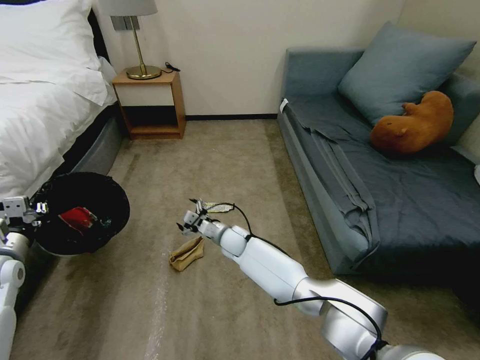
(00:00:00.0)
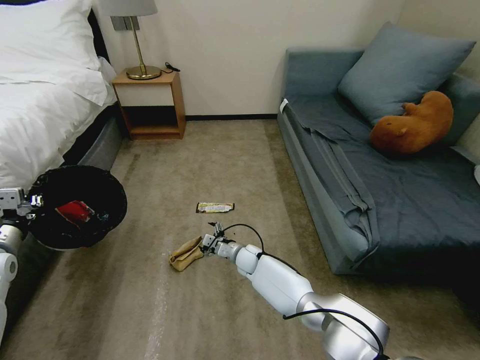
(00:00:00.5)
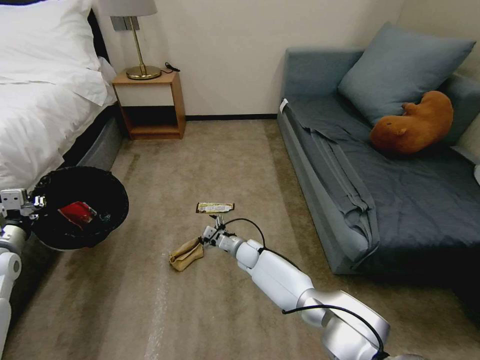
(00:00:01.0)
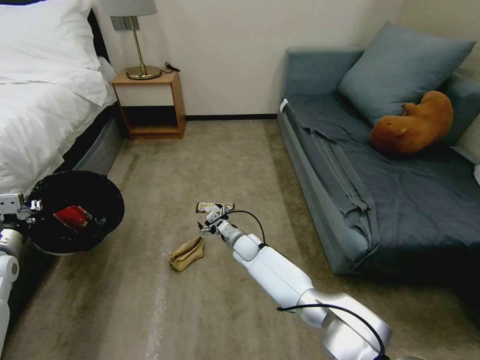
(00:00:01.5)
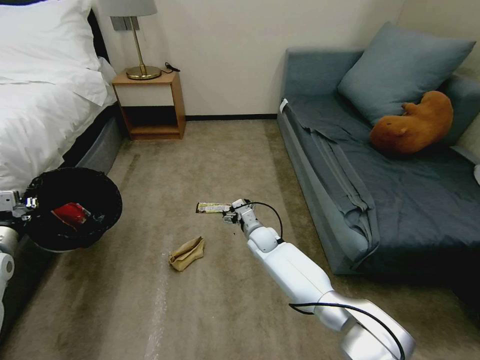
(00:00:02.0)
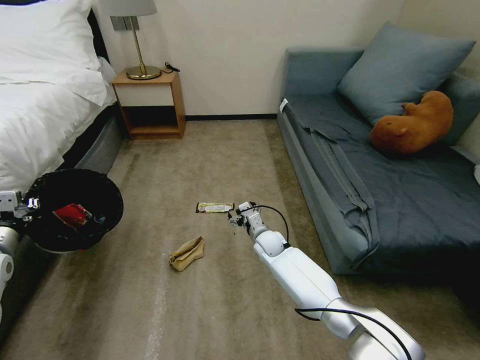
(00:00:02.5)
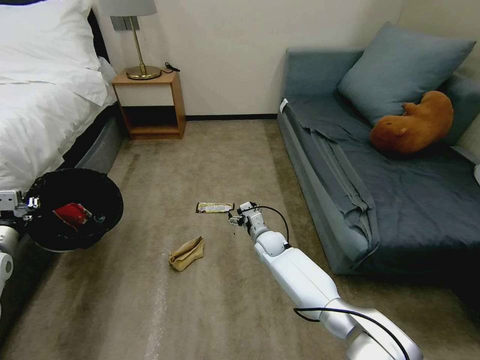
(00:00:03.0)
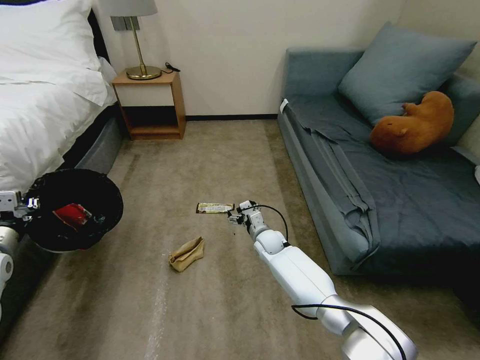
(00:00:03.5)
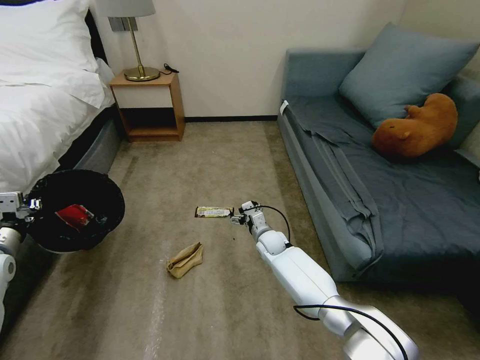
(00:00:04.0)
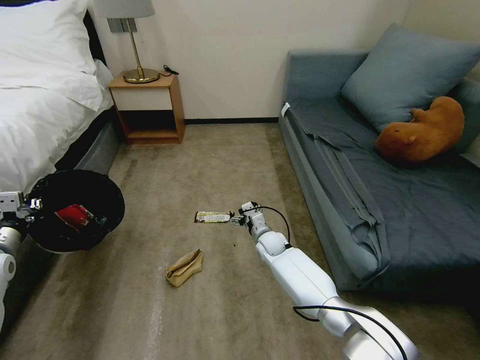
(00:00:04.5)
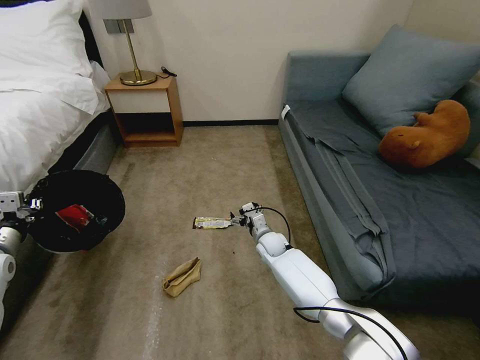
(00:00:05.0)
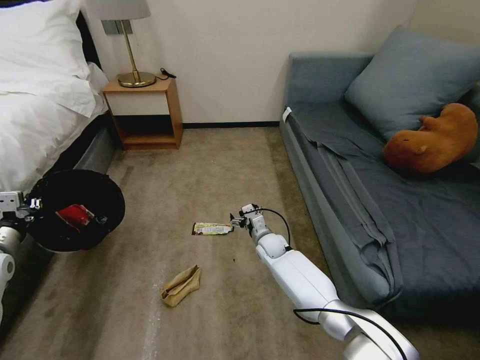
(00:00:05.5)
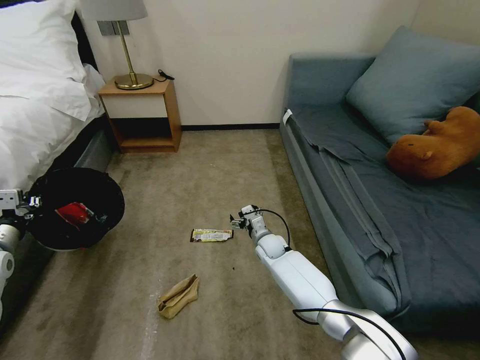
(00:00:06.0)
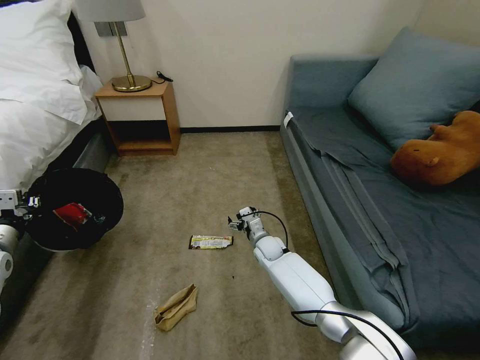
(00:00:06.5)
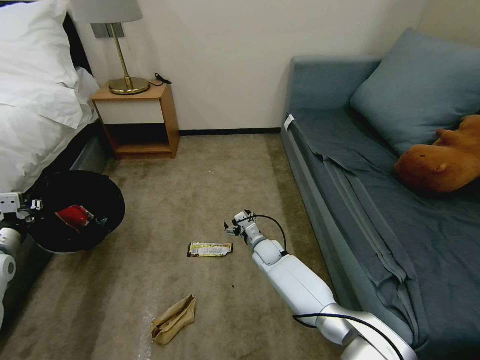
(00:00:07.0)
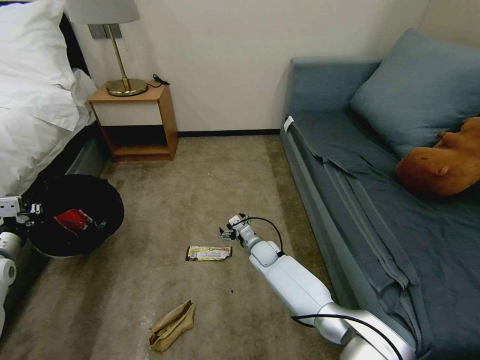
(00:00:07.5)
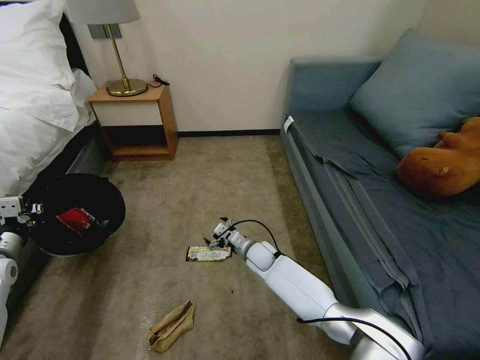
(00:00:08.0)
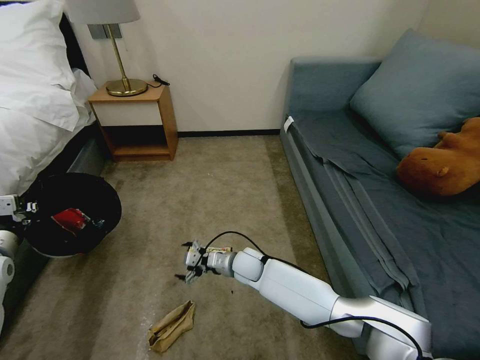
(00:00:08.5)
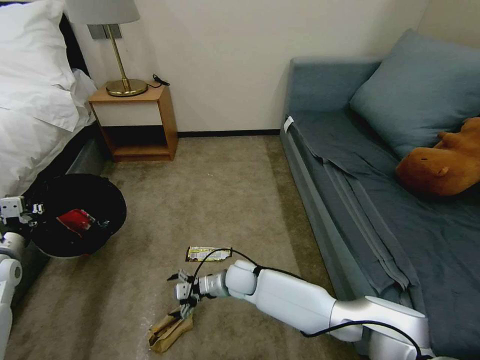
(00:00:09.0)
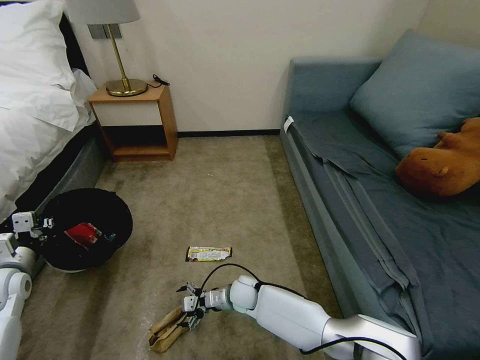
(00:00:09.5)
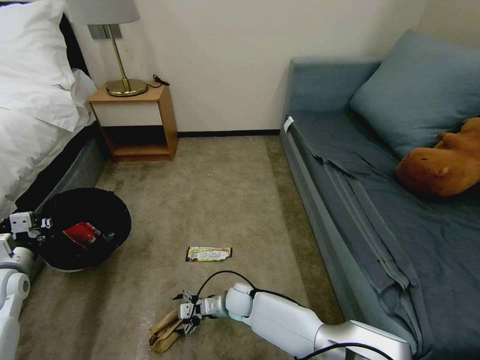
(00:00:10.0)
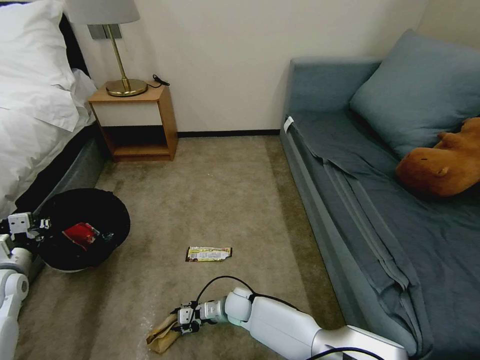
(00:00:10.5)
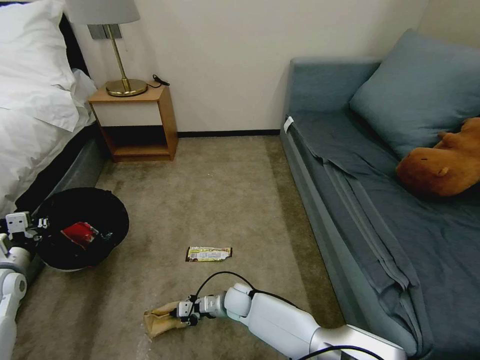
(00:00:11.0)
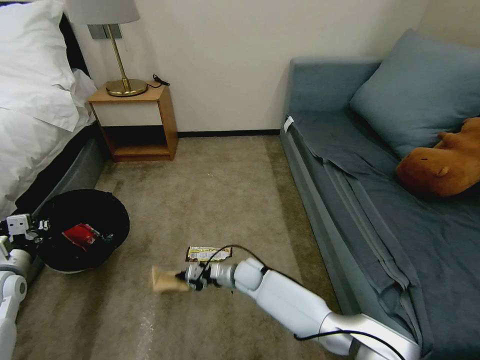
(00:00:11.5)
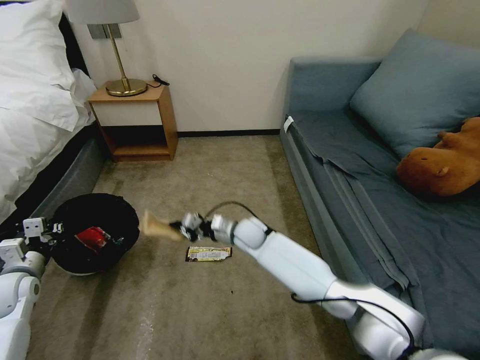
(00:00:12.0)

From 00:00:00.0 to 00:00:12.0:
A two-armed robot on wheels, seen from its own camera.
Task of the whole recording: Pick up the trash bin, then pick up the garbage on the floor and place it into the trash bin.
From 00:00:00.0 to 00:00:02.0: The right gripper goes some 10 cm to the right.
From 00:00:02.0 to 00:00:04.0: The grippers move only a little.
From 00:00:08.0 to 00:00:10.0: The right gripper goes roughly 15 cm backward, to the left and downward.
From 00:00:10.0 to 00:00:12.0: The right gripper goes approximately 20 cm upward and forward, and closes up.

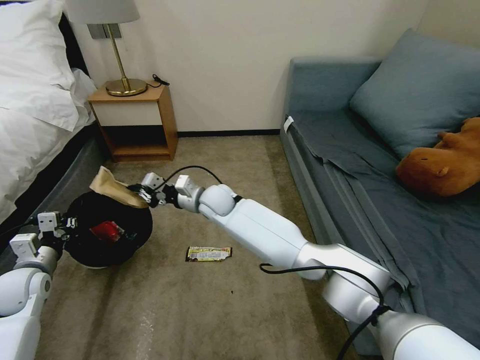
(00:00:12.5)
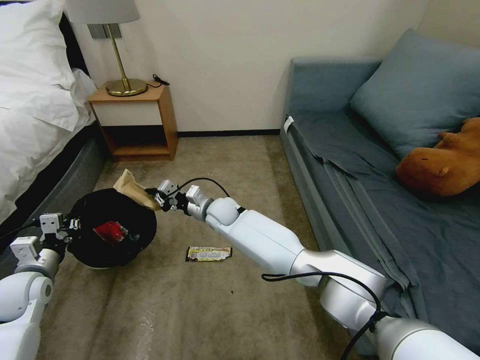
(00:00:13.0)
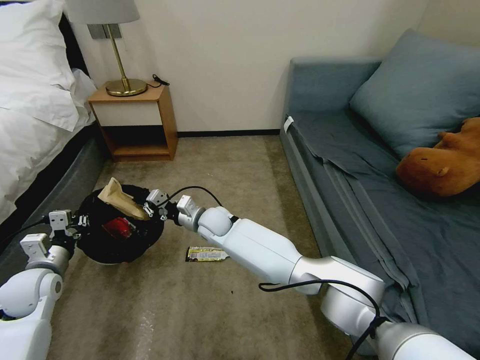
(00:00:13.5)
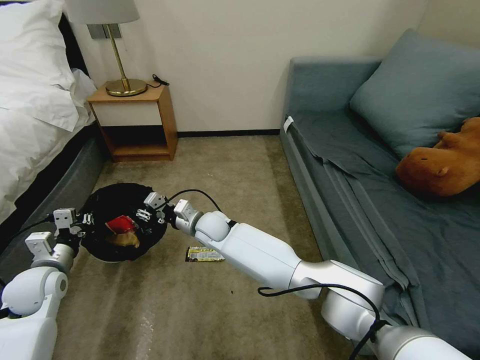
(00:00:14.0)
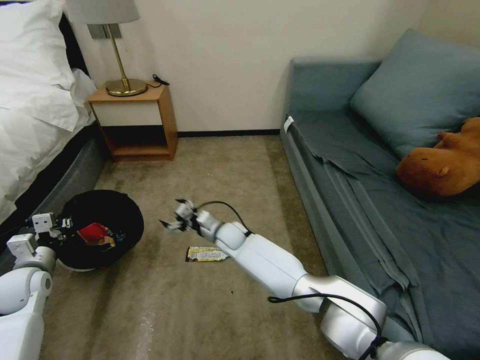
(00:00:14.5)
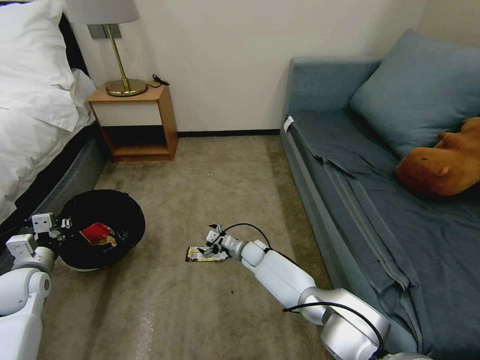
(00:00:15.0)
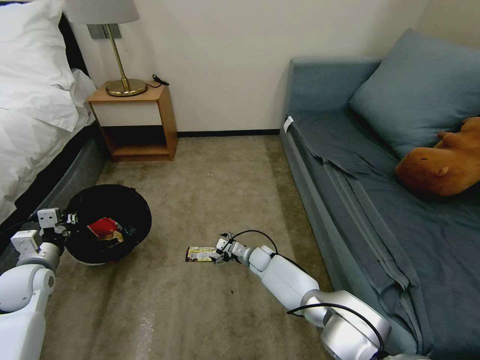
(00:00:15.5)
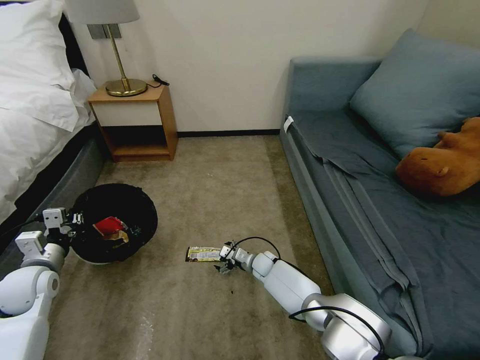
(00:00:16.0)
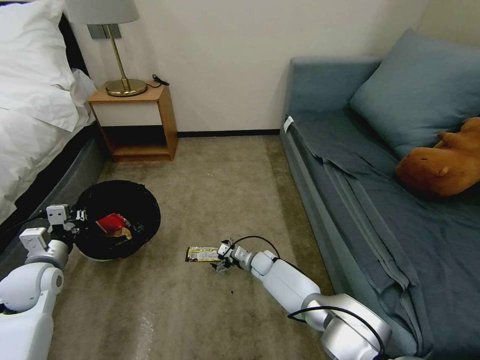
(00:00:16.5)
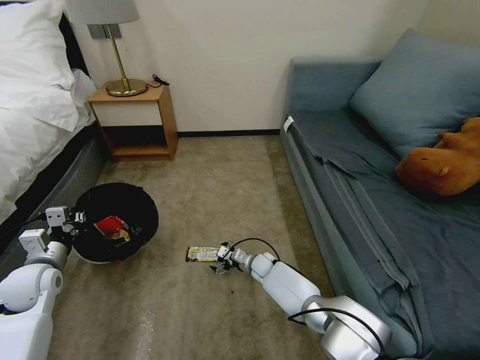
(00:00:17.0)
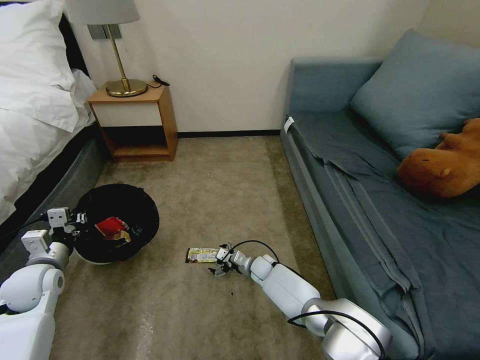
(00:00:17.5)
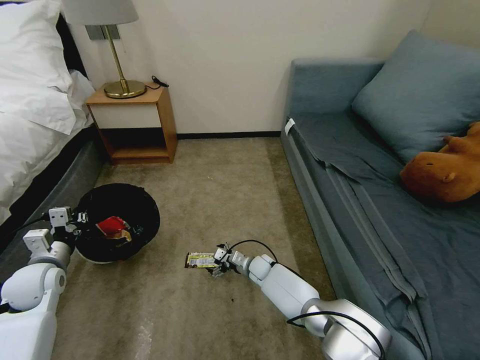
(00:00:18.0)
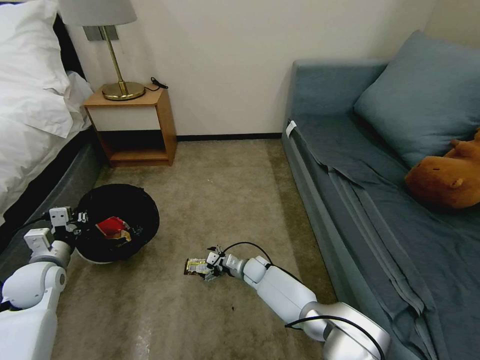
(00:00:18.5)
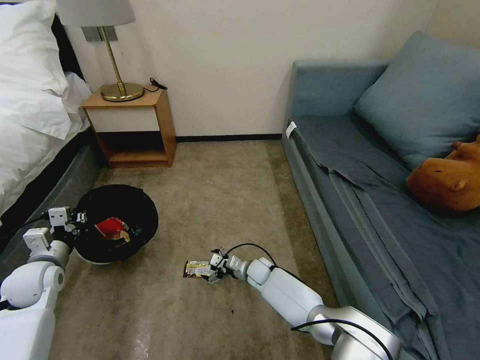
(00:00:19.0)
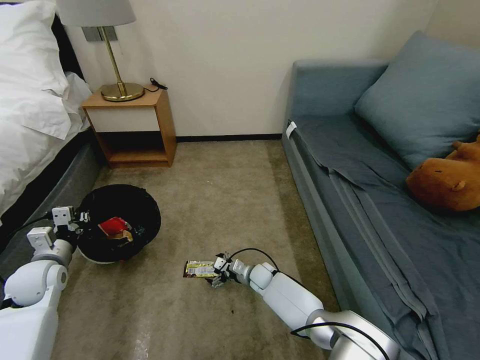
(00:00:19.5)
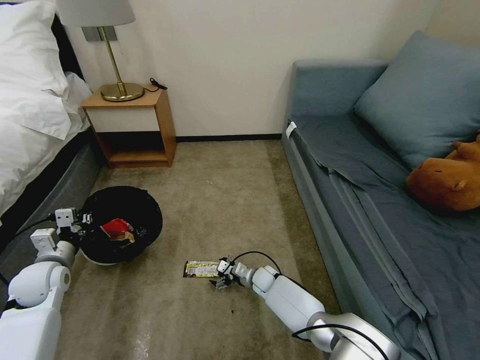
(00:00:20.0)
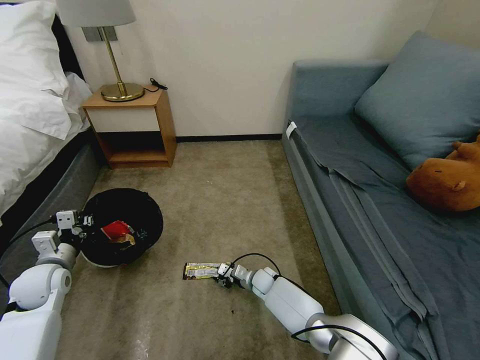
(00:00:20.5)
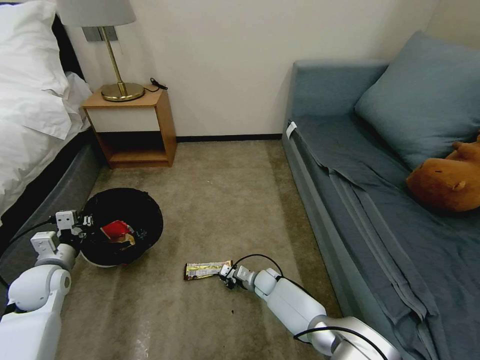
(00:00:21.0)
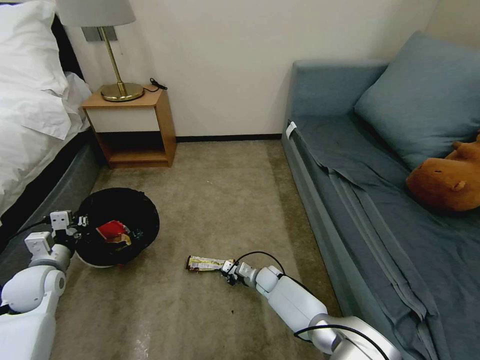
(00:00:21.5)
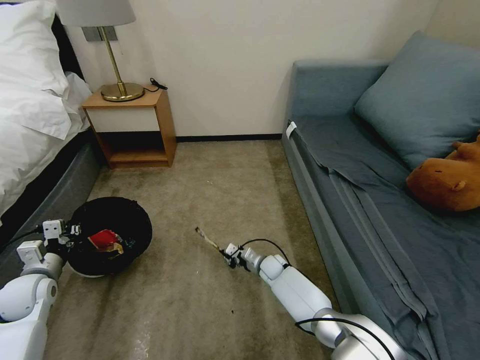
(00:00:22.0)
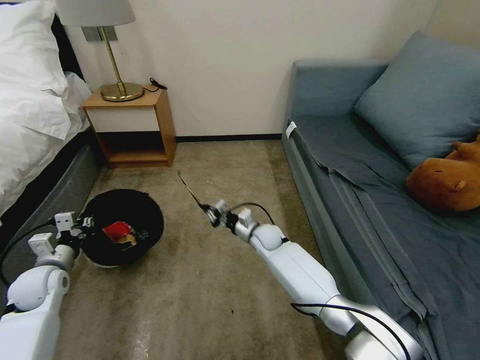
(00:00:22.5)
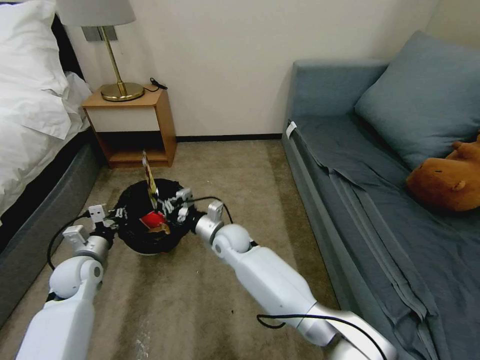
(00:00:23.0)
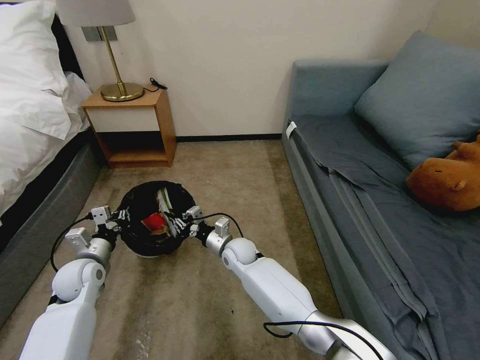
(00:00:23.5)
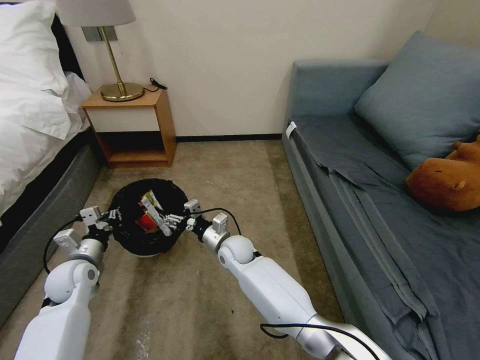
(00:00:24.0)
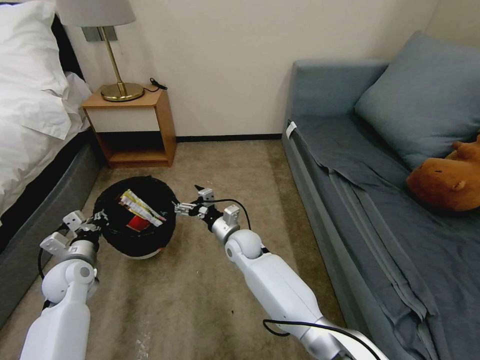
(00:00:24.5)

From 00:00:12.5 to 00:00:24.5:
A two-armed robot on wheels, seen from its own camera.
Task of the whole recording: Pick up the trash bin, then pick up the garbage on the floor and place it into the trash bin.
From 00:00:12.5 to 00:00:14.5: The right gripper goes some 15 cm downward, and opens up.
From 00:00:14.5 to 00:00:16.5: The right gripper moves downward and to the right, approximately 20 cm.
From 00:00:16.5 to 00:00:18.5: The grippers stay close to where they were, moving slightly.
From 00:00:18.5 to 00:00:20.5: The right gripper closes up.
From 00:00:20.5 to 00:00:22.5: The right gripper shifts some 15 cm upward and forward, and closes its fingers.
From 00:00:22.5 to 00:00:24.5: The right gripper travels to the left by about 5 cm, and opens its fingers. Meanwhile the left gripper ends up approximately 5 cm from where it was.

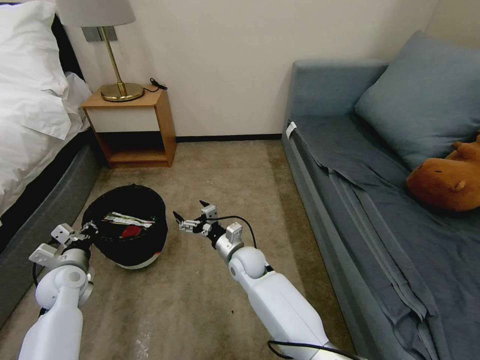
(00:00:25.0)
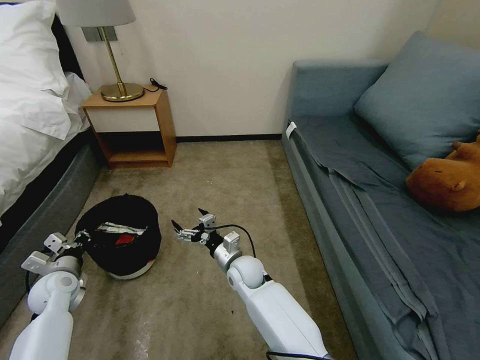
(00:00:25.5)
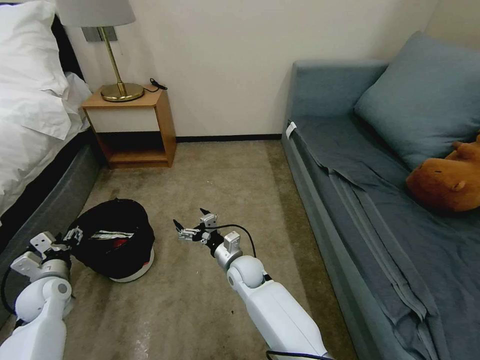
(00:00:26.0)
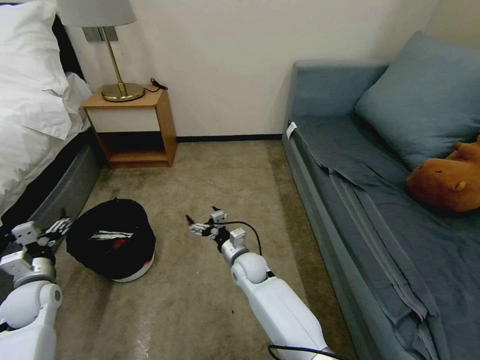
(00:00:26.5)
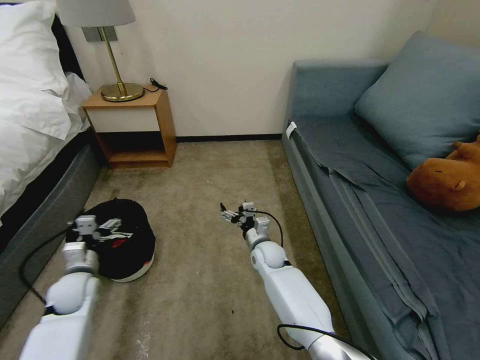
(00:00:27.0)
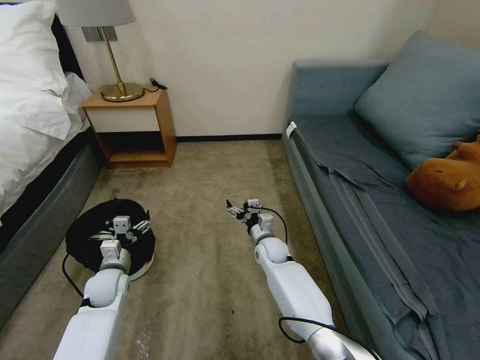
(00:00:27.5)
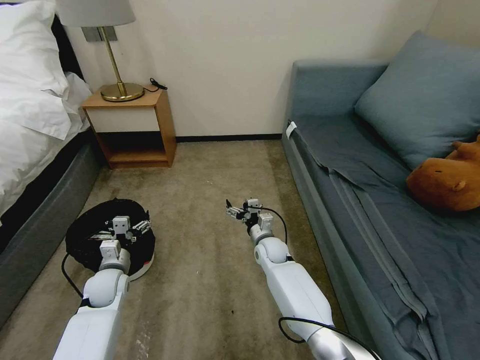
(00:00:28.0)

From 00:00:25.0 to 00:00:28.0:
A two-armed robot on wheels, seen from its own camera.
Task of the whole recording: Pick up the trash bin, then pick up the garbage on the floor and place it into the trash bin.
From 00:00:25.0 to 00:00:26.5: The left gripper changes place by approximately 5 cm, and opens its fingers.
From 00:00:26.5 to 00:00:28.0: The right gripper moves to the right and forward, roughly 10 cm. Meanwhile the left gripper is displaced to the right, forward and downward by some 15 cm.
